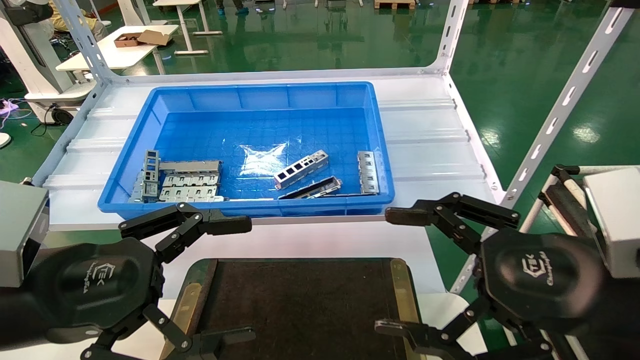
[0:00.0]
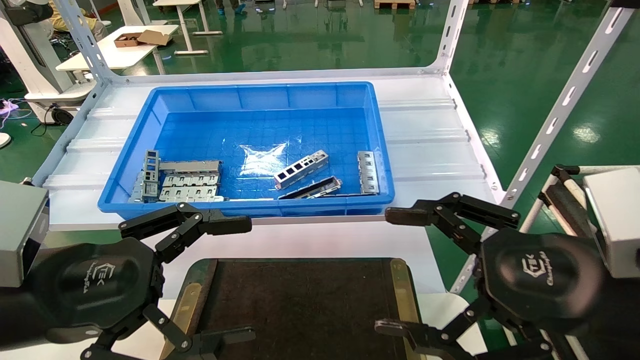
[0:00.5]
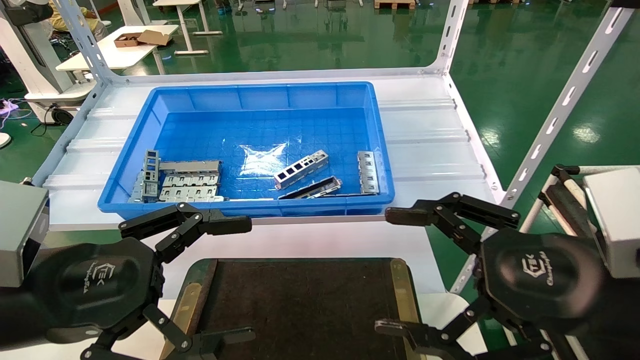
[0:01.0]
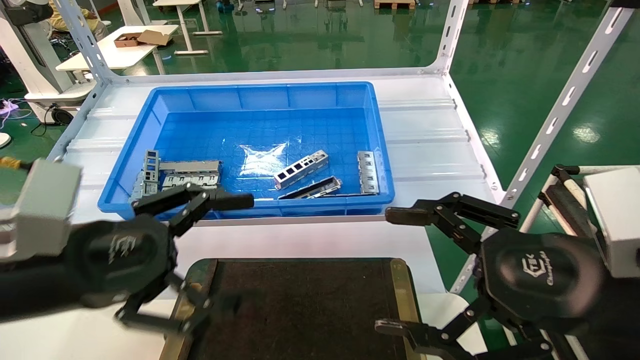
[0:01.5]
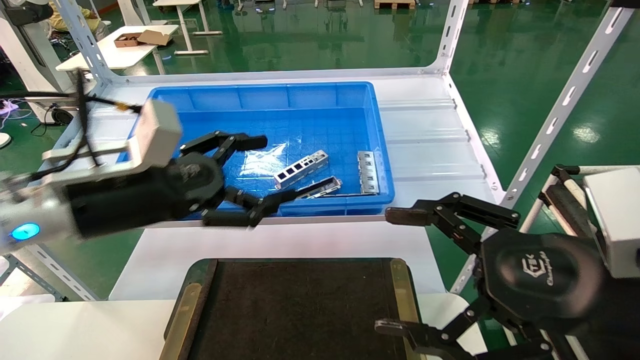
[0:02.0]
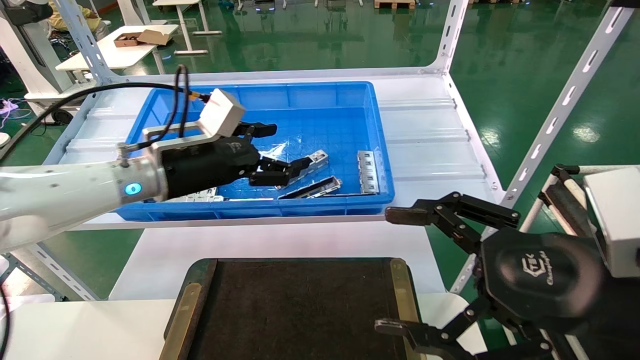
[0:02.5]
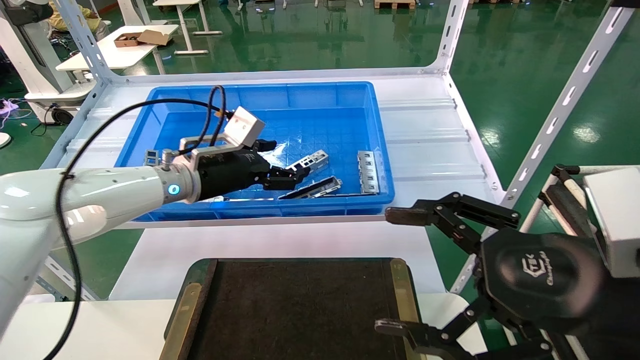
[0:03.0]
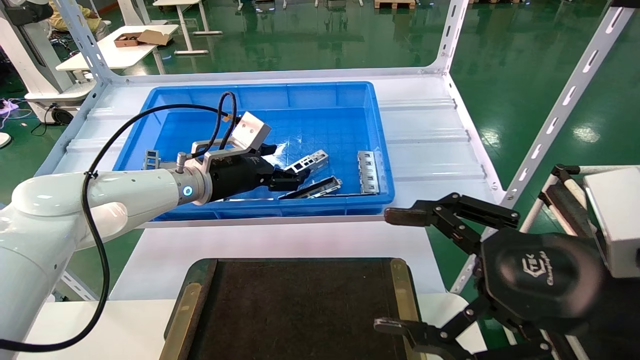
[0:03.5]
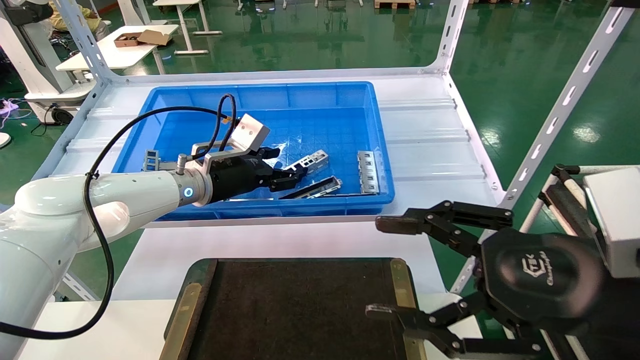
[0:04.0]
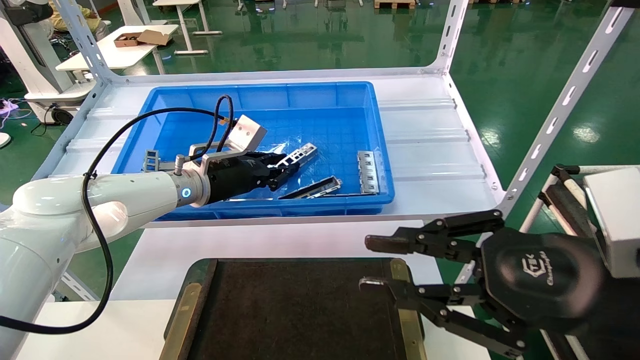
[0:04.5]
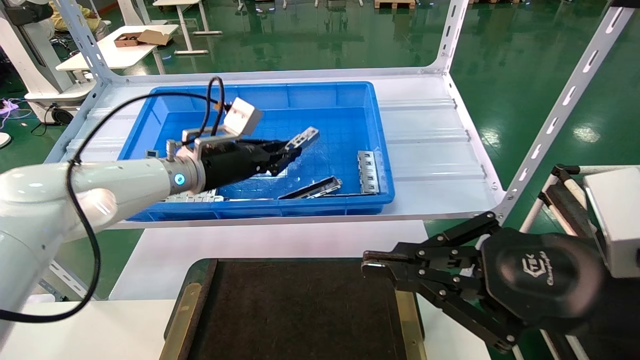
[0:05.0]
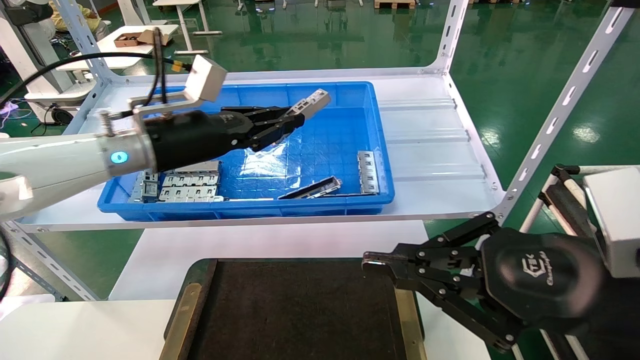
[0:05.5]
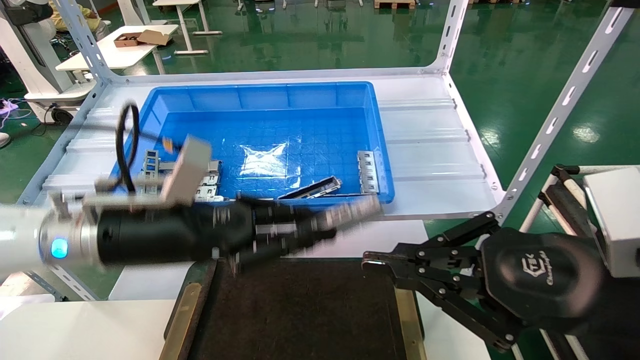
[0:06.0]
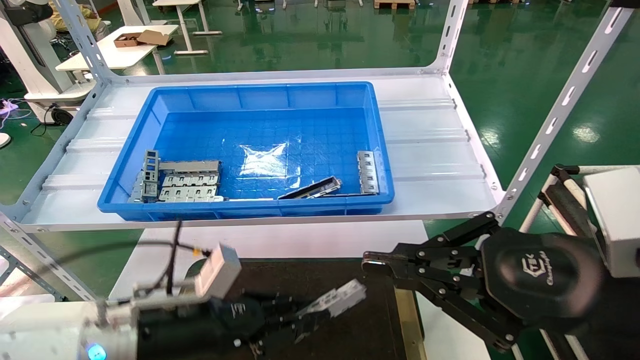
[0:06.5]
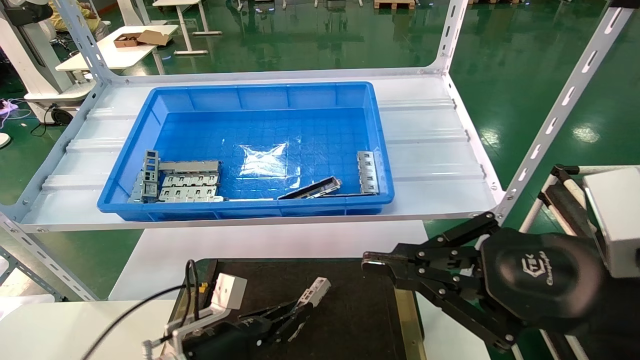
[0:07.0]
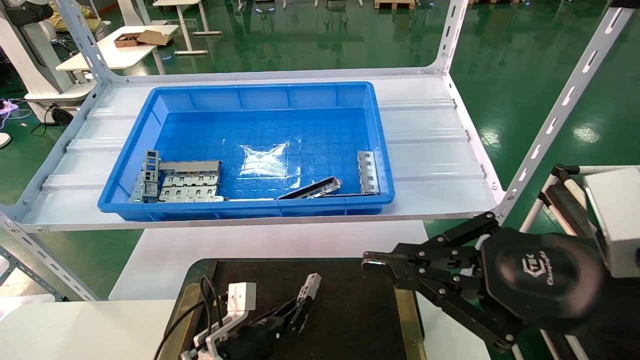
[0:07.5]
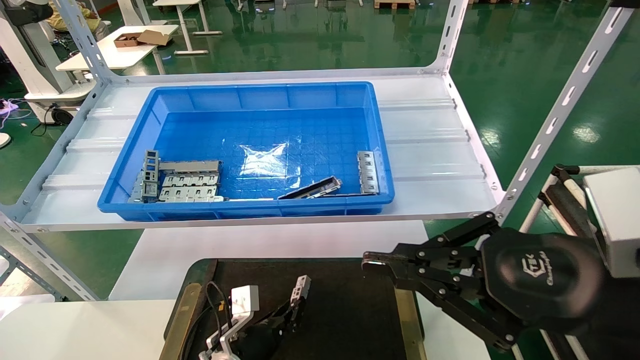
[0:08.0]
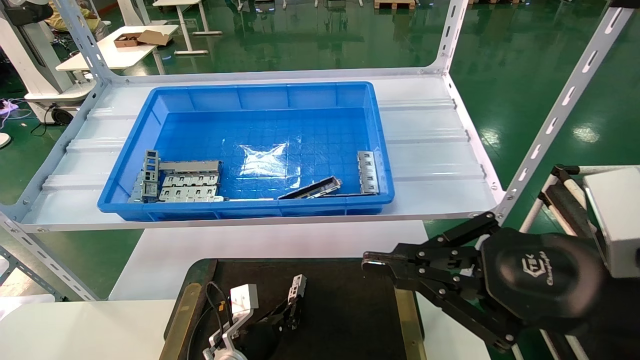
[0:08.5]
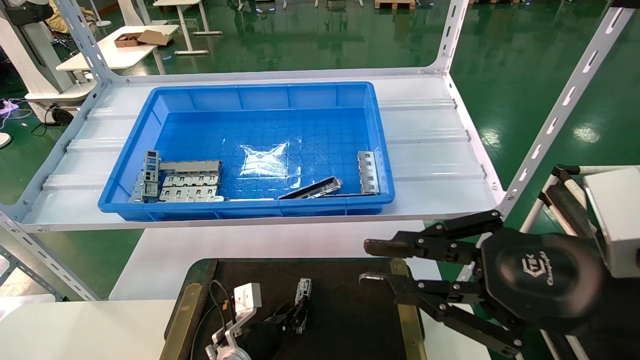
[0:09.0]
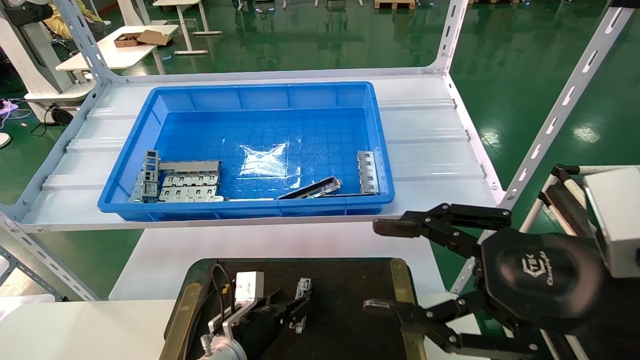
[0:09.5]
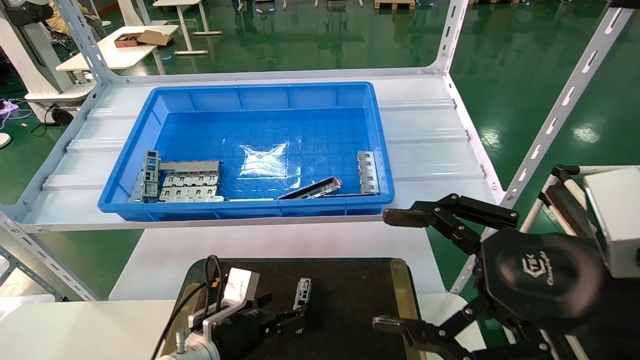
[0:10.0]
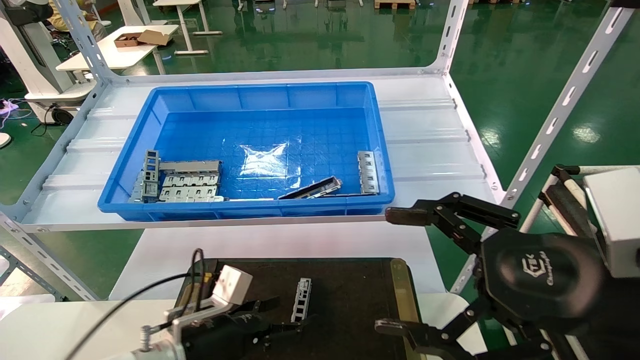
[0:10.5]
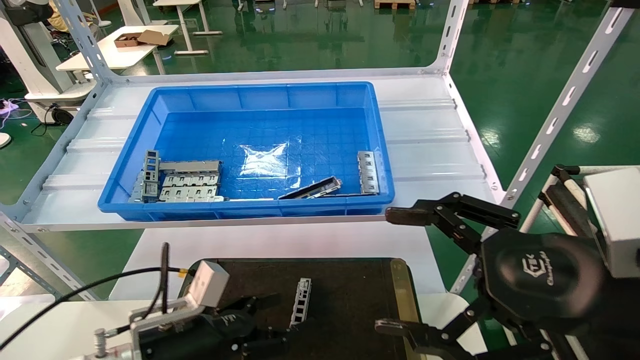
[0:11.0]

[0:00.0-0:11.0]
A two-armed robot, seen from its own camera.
Task of the whole recording: Grasp the part with one hand and place it on the black container.
Step, 0:02.0 to 0:05.0: Pick up the front USB bracket from the feeding area.
Step, 0:05.5 to 0:10.0: Place the front USB bracket into the box.
0:00.0 to 0:02.0: The left gripper goes roughly 10 cm forward.
0:02.0 to 0:03.5: The left gripper shifts approximately 15 cm forward.
0:03.5 to 0:05.5: The right gripper closes. The left gripper goes approximately 10 cm backward and upward, and closes up.
0:05.5 to 0:07.5: The left gripper shifts some 35 cm downward.
0:07.5 to 0:09.0: The grippers make only small movements.
0:09.0 to 0:11.0: The right gripper opens its fingers, while the left gripper travels upward, backward and to the left by approximately 20 cm, and opens its fingers.
